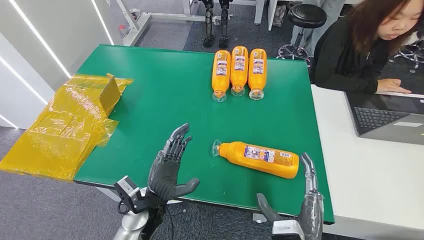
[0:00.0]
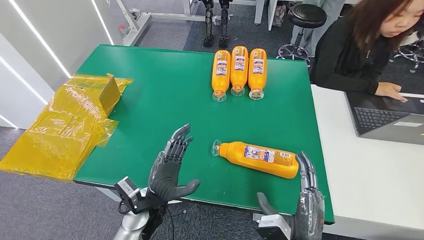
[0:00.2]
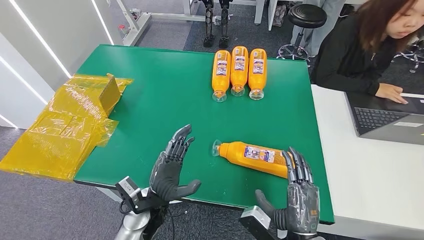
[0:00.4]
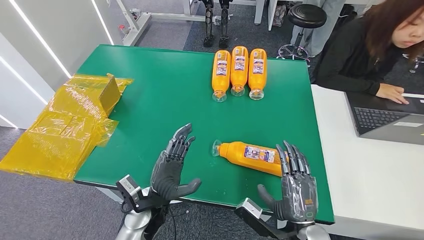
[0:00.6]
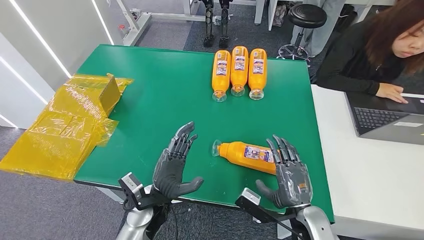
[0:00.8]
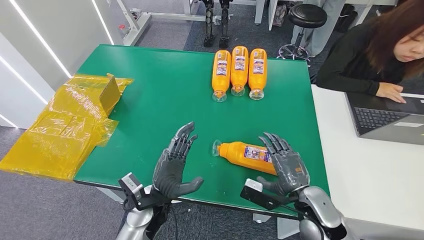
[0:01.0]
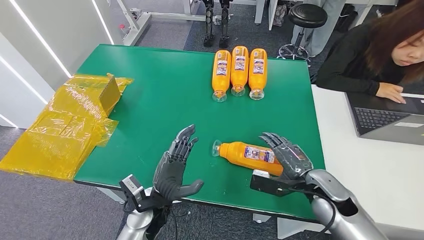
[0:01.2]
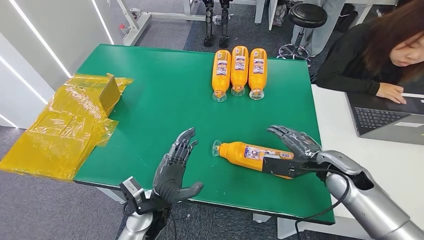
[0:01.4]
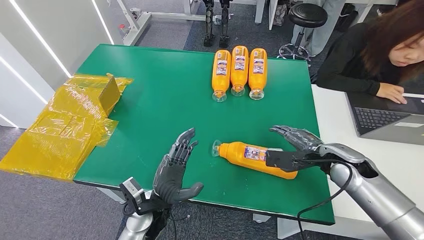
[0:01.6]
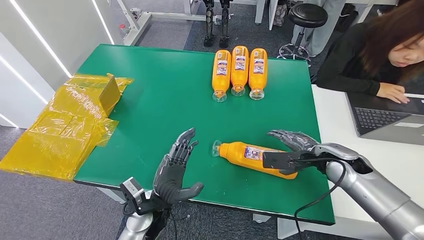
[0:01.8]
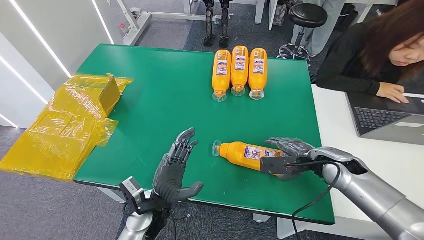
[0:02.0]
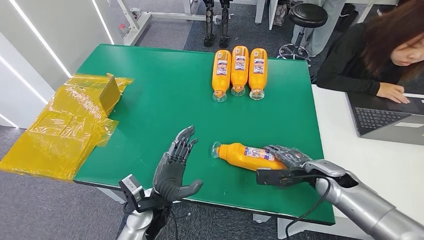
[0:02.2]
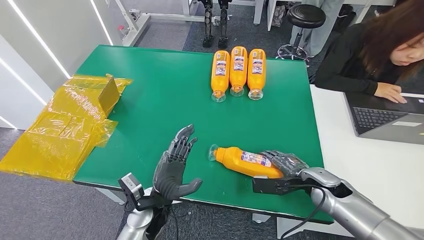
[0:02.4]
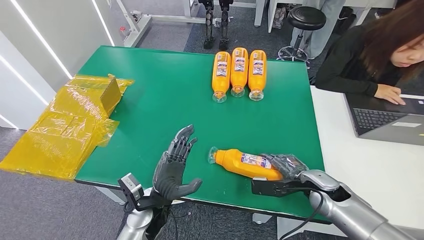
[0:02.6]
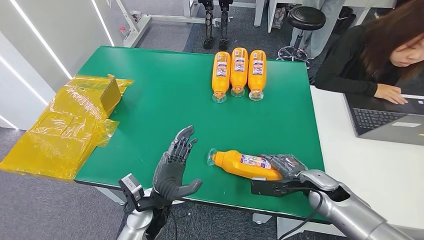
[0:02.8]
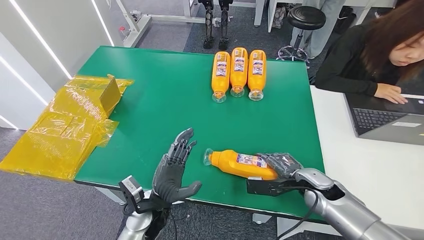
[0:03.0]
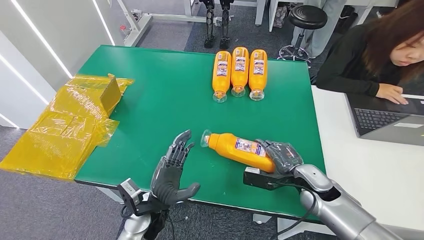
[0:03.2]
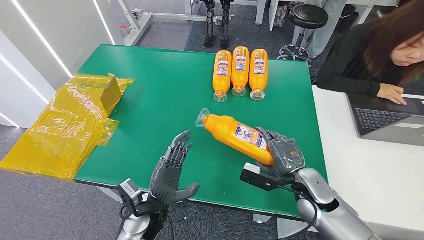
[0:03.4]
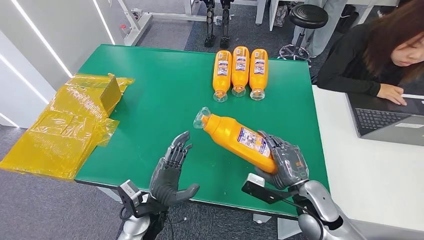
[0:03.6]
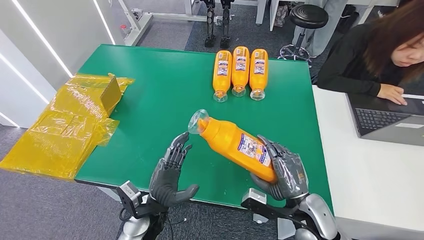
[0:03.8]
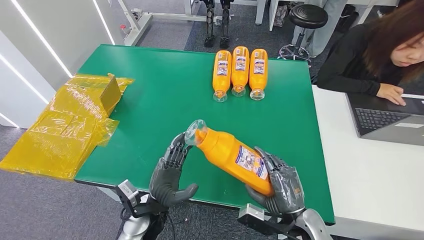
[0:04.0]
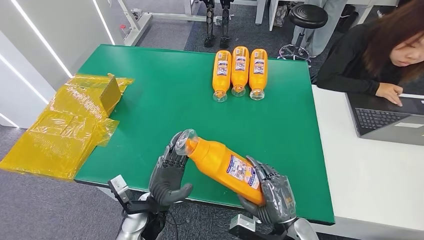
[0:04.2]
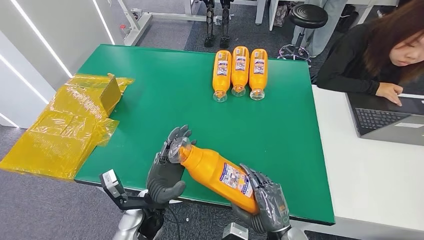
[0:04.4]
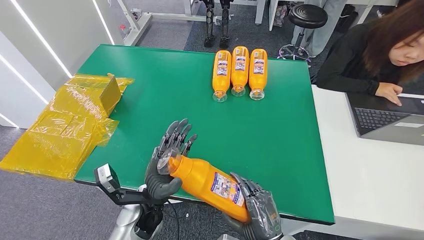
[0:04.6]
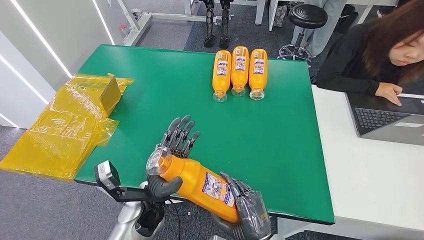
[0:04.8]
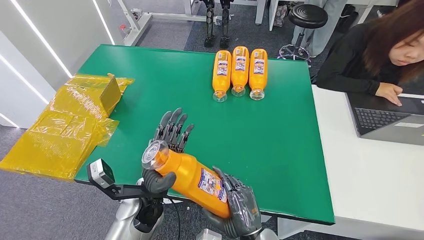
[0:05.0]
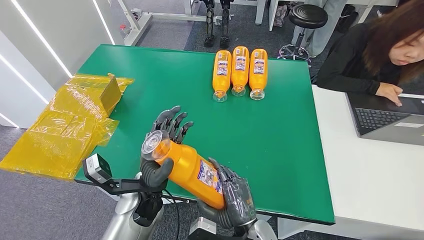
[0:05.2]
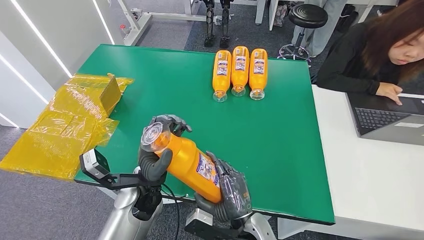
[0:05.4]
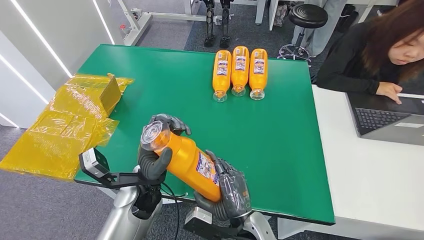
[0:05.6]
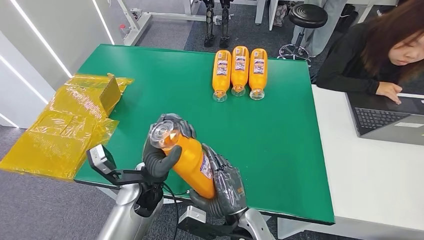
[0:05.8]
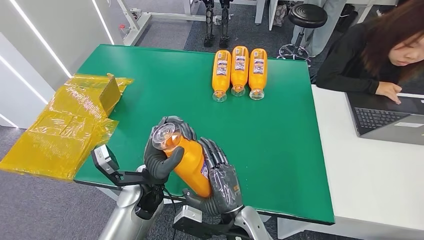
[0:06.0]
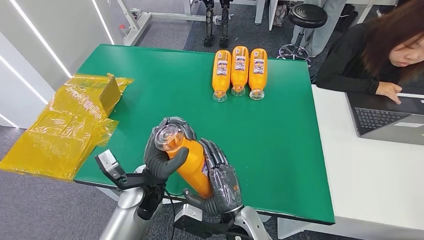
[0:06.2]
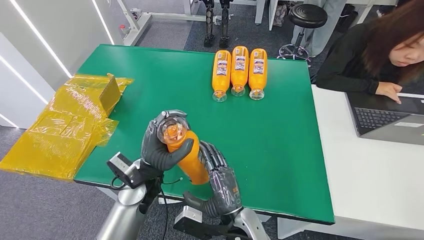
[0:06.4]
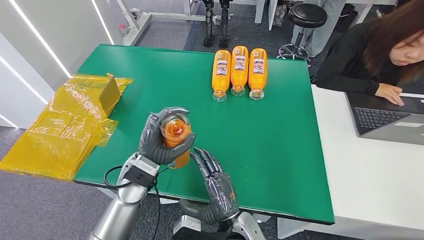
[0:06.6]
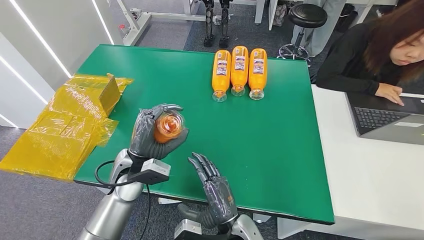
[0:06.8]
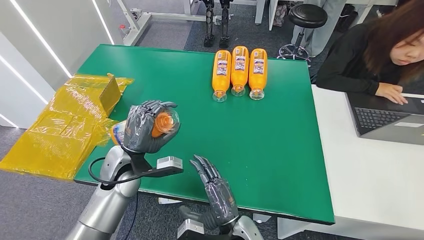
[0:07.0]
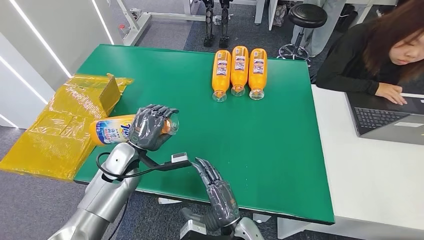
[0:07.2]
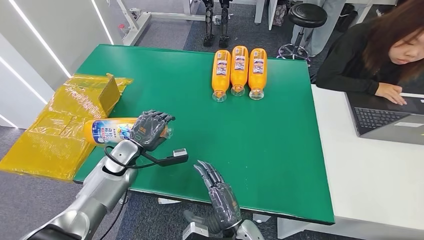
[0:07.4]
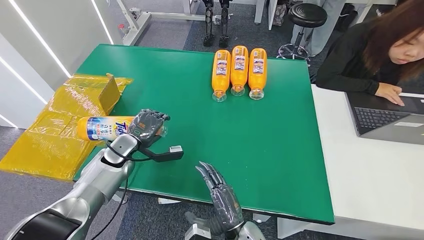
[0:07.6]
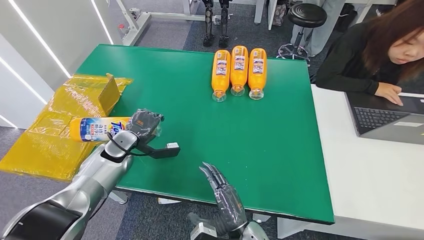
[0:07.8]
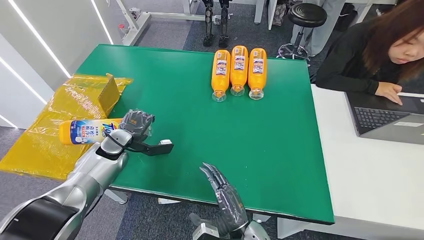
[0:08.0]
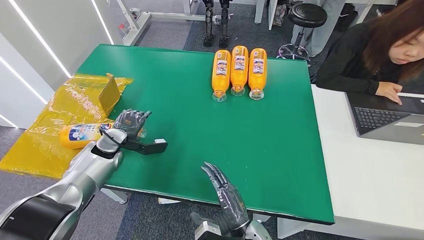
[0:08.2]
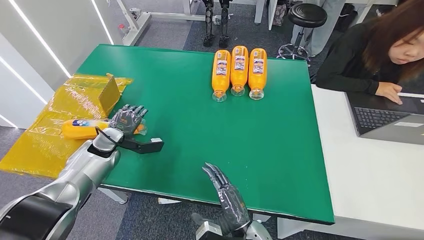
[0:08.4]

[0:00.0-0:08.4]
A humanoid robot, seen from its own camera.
Step, 0:00.0 to 0:03.6: Pick up the bottle from the table.
Step, 0:03.8 to 0:08.4: Turn the bottle to the front side.
0:01.4 to 0:02.8: The right hand shifts approximately 10 cm downward.
0:02.8 to 0:04.2: The right hand travels backward and to the left by some 15 cm.
0:04.2 to 0:05.6: The left hand is displaced upward and forward by roughly 10 cm. The right hand is displaced to the left by some 10 cm.
0:05.6 to 0:07.0: The left hand shifts roughly 10 cm to the left.
0:07.0 to 0:08.4: The left hand is displaced to the left and forward by roughly 15 cm.

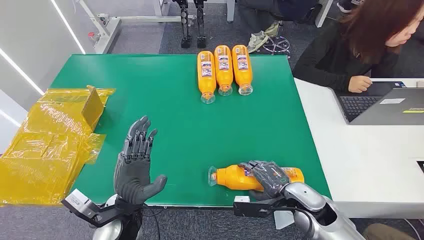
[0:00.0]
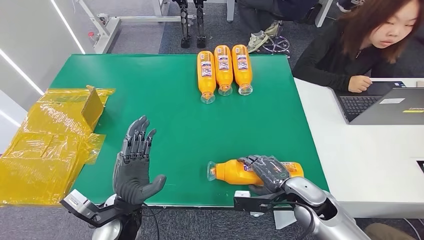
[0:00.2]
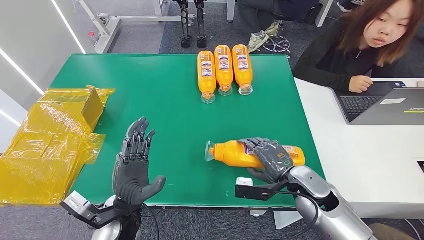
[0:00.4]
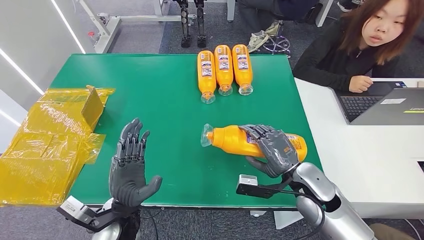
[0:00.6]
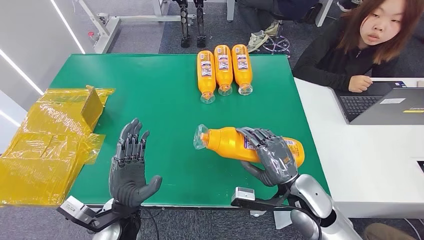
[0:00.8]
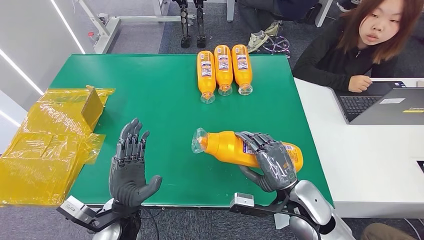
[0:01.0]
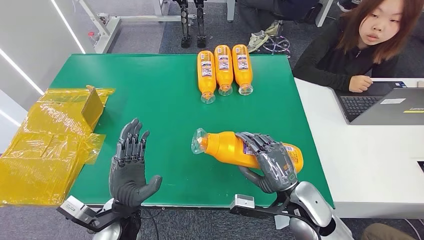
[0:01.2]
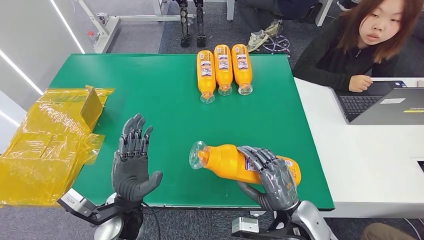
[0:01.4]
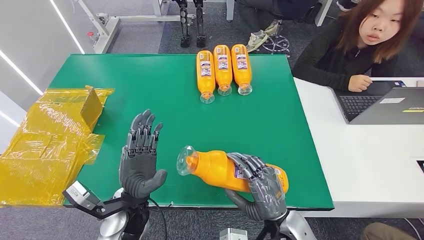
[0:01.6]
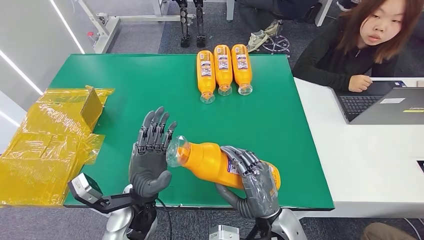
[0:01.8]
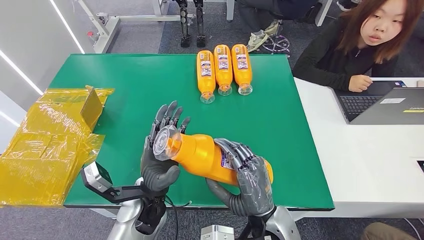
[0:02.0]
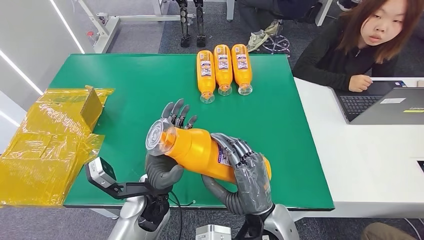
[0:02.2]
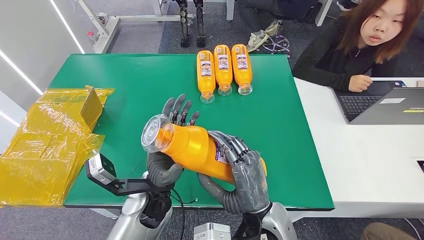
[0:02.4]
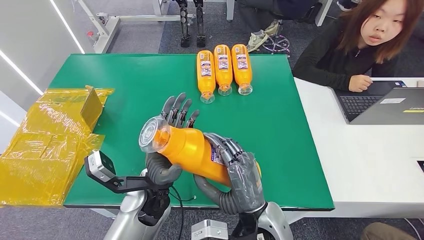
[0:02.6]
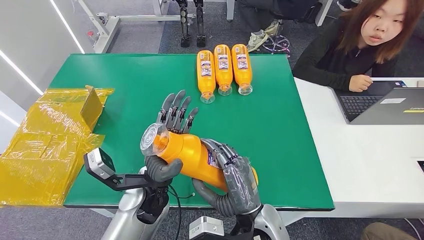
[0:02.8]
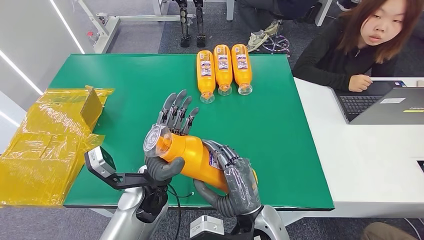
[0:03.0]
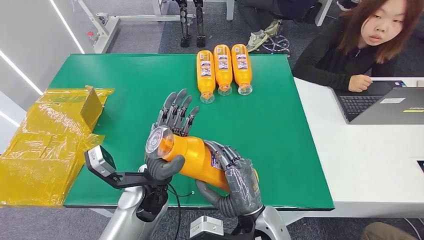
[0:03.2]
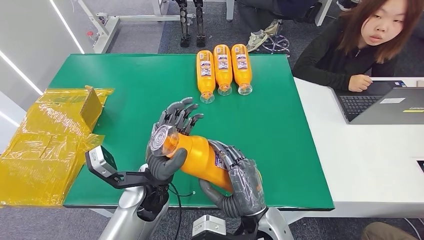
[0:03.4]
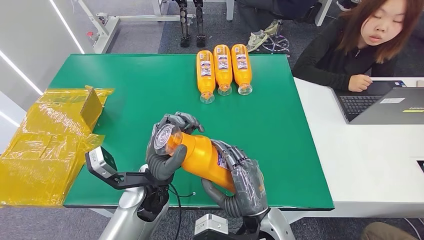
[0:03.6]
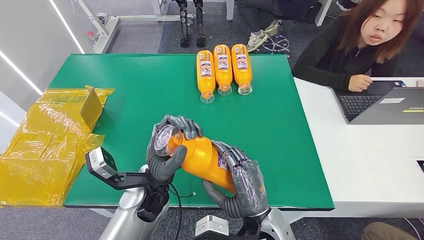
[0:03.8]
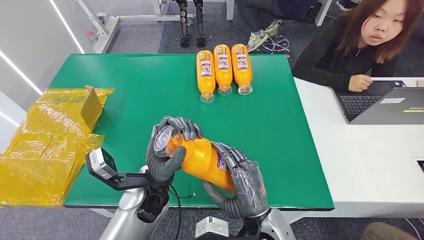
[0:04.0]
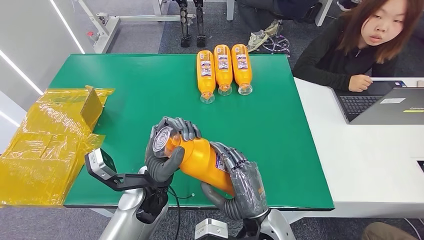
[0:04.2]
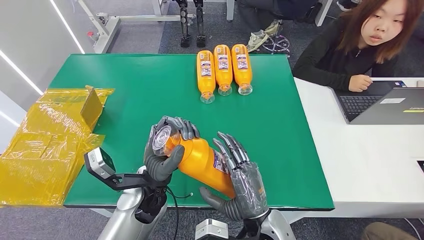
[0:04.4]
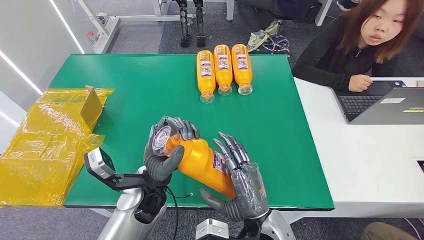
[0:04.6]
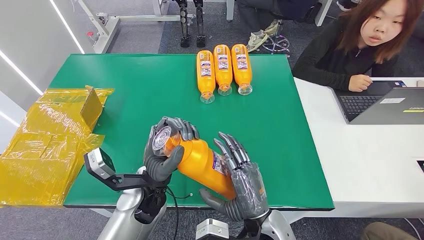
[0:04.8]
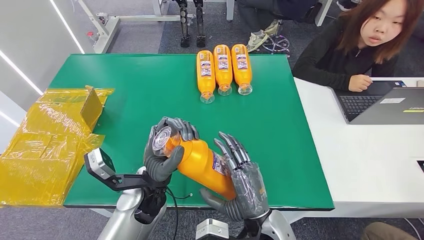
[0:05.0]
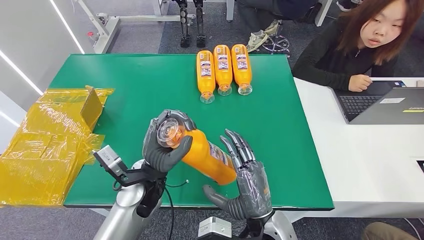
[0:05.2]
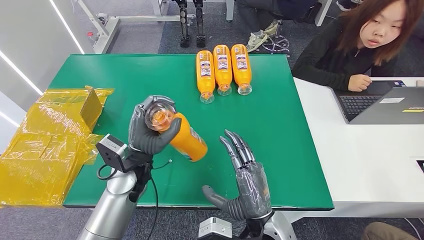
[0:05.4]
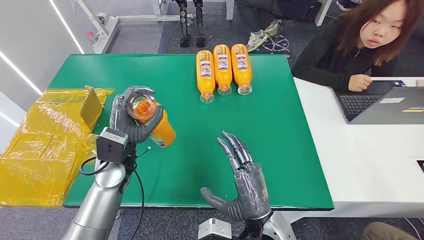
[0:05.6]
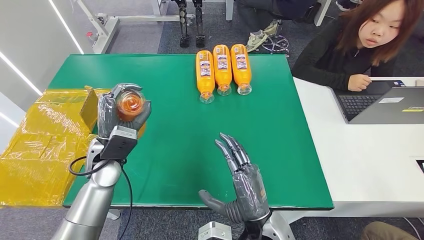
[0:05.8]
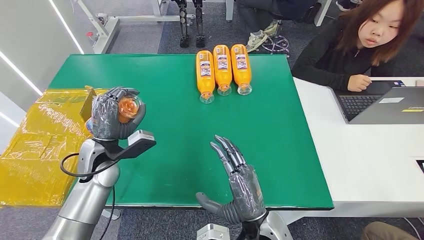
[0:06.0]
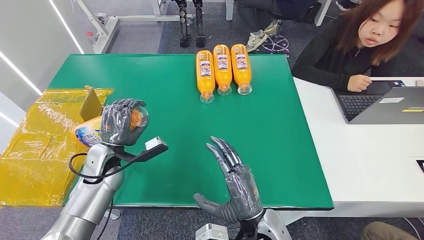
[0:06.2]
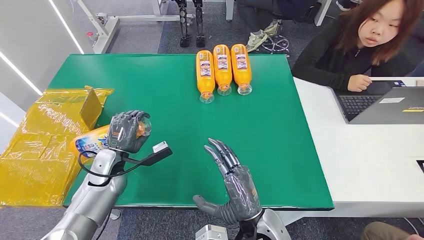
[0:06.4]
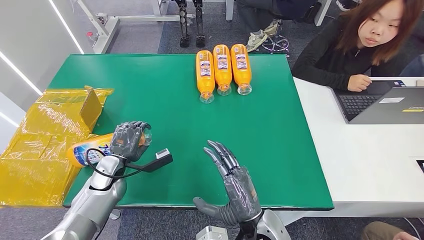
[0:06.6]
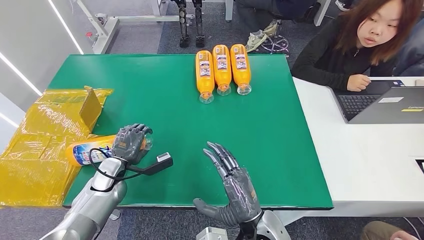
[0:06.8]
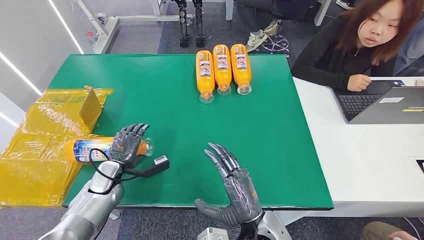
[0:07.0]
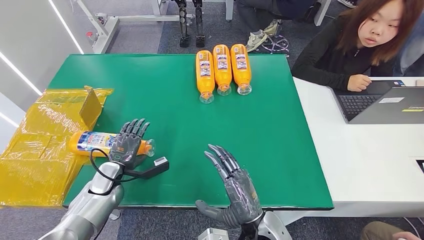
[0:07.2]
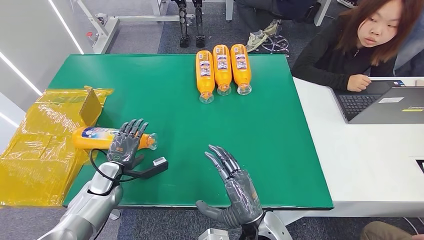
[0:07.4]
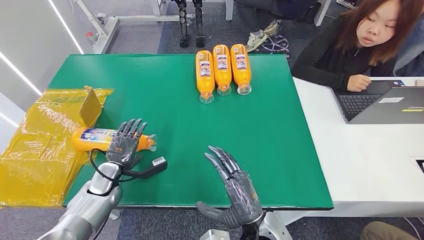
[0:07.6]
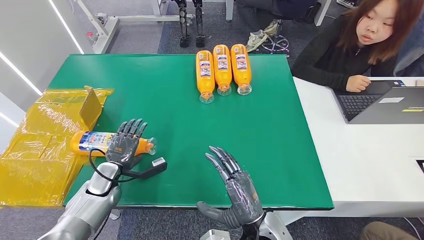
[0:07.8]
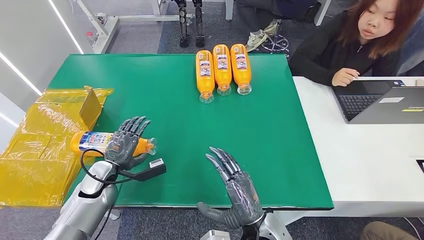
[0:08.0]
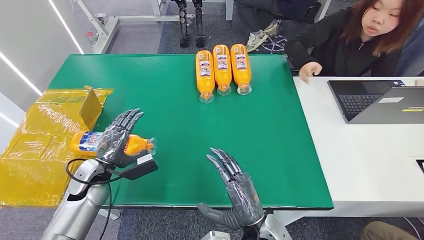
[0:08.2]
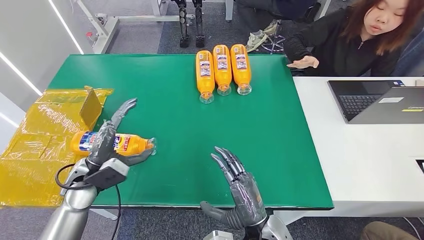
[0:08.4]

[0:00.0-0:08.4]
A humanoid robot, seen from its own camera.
Step, 0:00.0 to 0:02.4: Pick up the bottle from the table.
Step, 0:02.6 to 0:08.4: Turn the bottle to the front side.
0:01.4 to 0:02.8: The left hand goes some 5 cm to the right, while the right hand moves to the left, some 10 cm.
0:02.8 to 0:04.2: There are only small adjustments of the hands.
0:04.2 to 0:05.6: The left hand goes roughly 10 cm to the left and forward.
0:05.6 to 0:07.0: The left hand travels downward and to the left by roughly 15 cm.
0:07.0 to 0:08.4: The left hand shifts some 10 cm upward.
